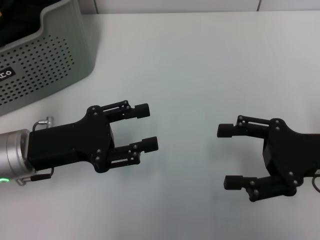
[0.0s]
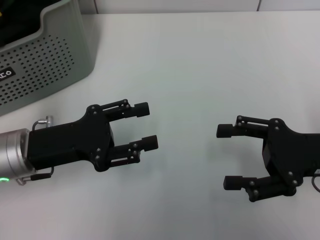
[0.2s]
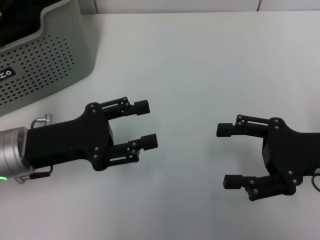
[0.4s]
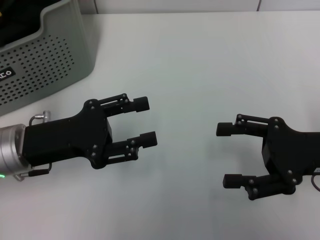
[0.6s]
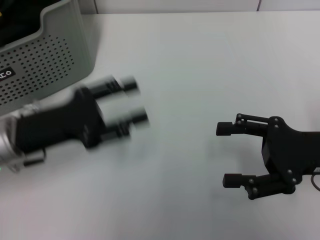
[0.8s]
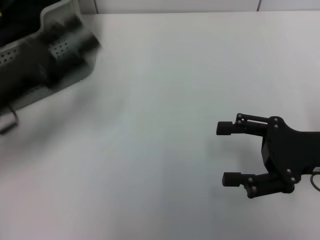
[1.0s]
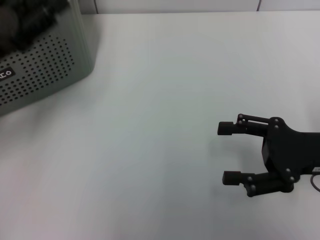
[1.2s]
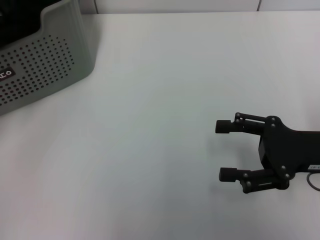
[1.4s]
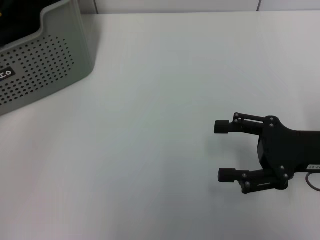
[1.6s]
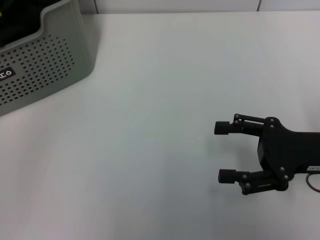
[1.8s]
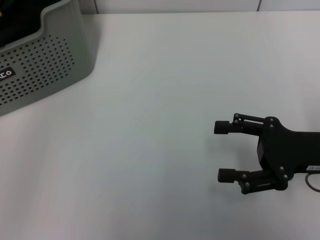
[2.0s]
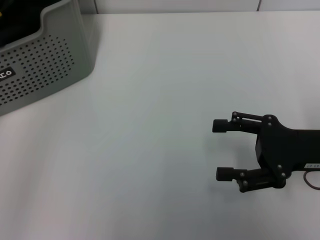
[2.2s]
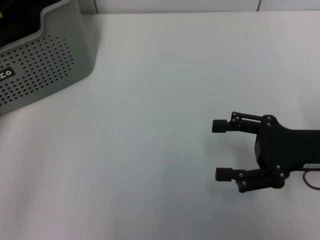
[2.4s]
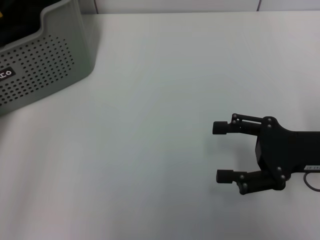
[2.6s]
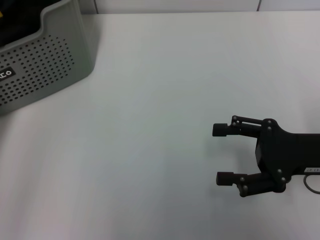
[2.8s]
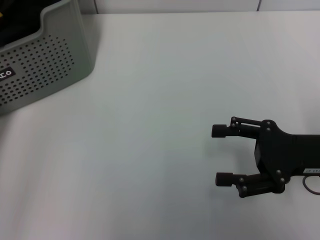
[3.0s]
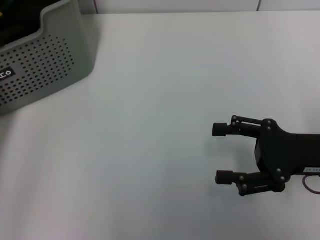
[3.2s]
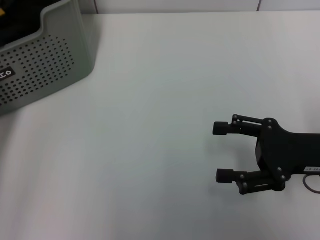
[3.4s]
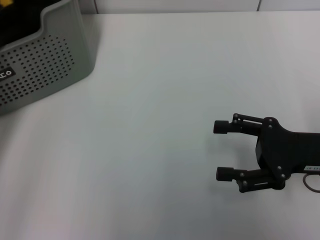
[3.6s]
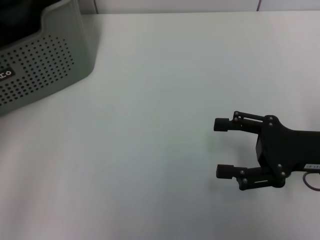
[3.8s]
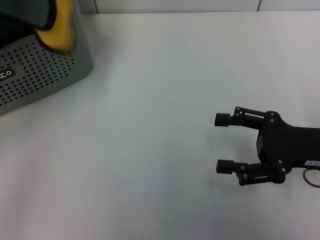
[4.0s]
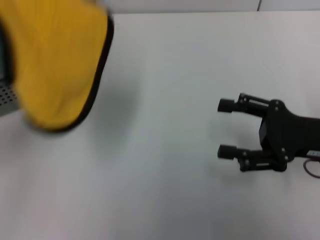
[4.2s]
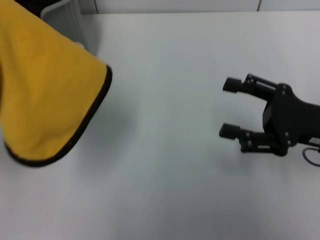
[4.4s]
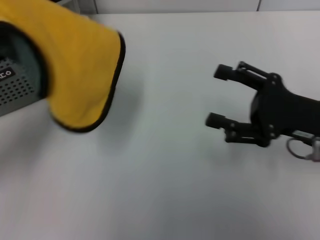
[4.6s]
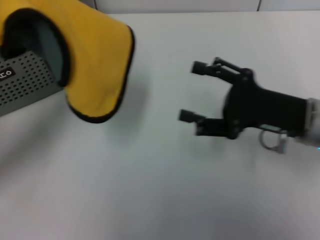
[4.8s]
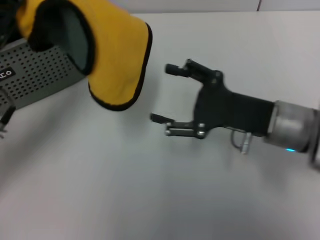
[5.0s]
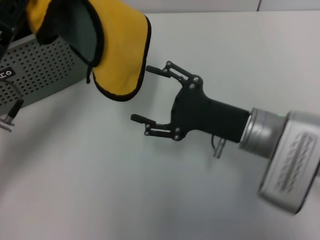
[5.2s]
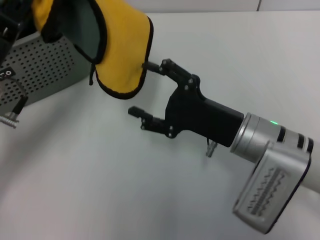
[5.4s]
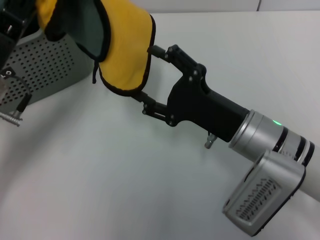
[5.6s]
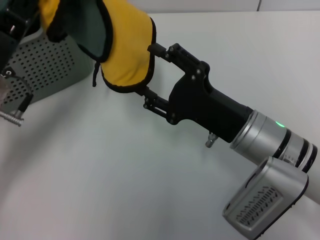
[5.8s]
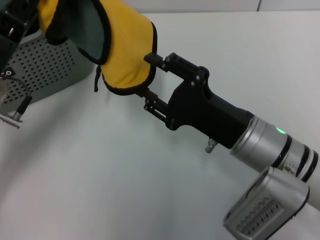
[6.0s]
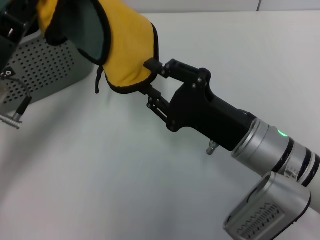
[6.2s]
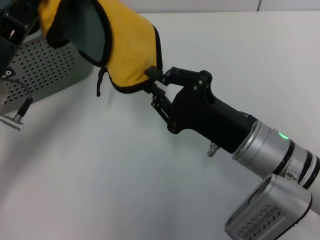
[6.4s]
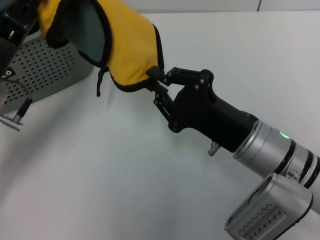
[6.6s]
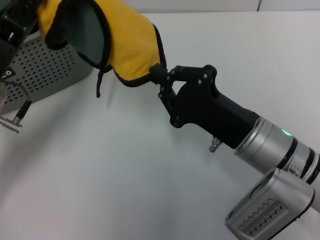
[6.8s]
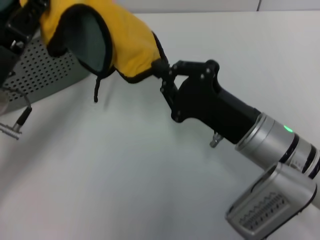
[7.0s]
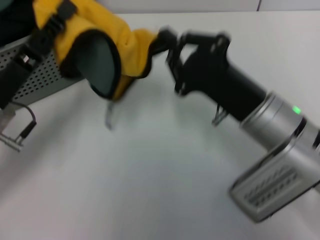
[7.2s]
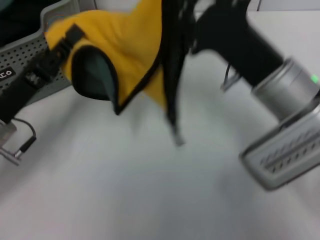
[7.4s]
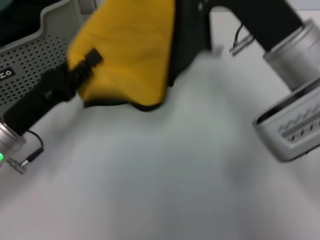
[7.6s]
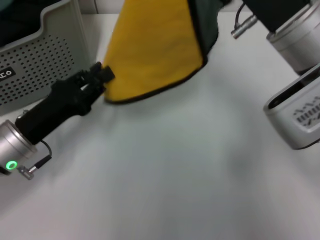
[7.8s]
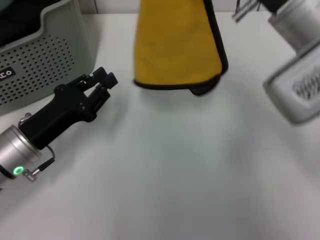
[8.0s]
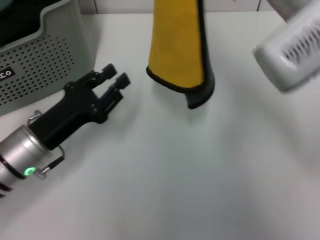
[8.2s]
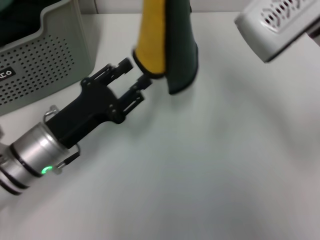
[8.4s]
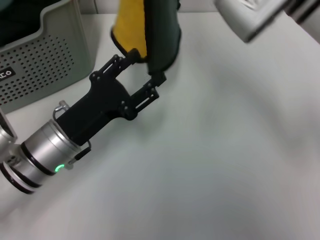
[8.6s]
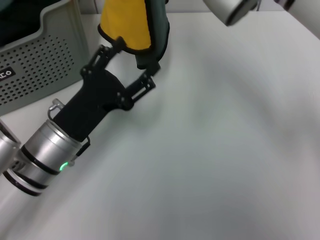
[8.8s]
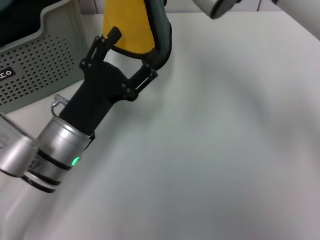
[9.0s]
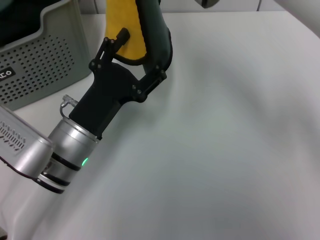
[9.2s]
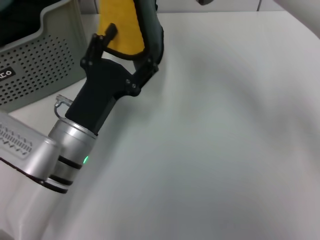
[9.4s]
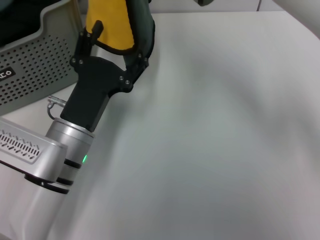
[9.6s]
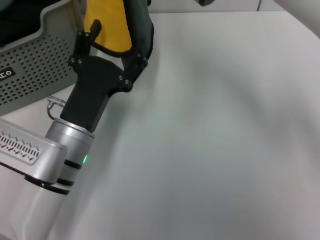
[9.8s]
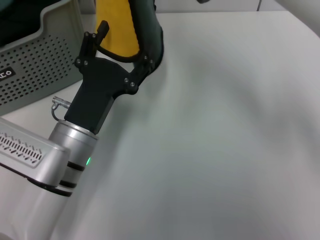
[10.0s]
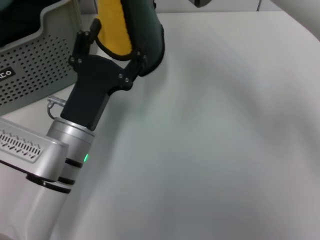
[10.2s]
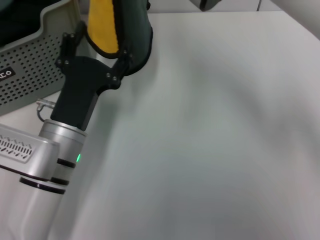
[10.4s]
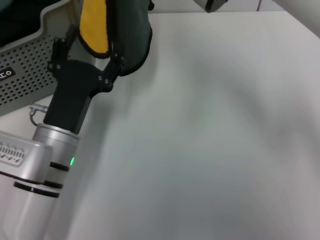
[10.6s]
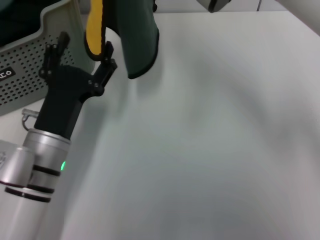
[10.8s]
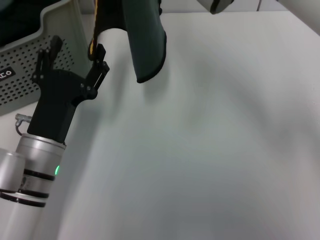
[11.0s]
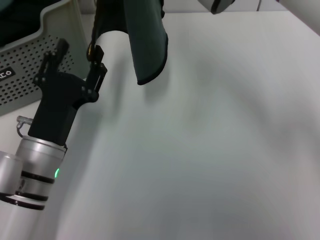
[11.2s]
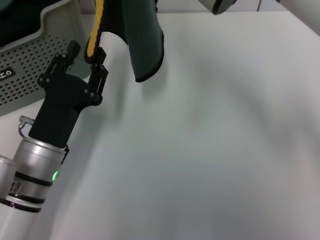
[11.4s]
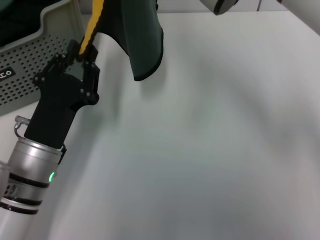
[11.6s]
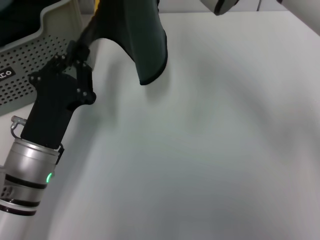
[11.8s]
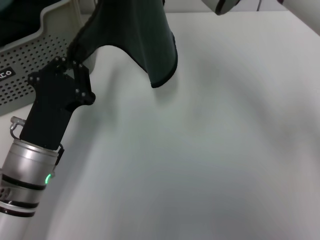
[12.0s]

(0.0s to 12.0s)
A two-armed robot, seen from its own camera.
Task of the whole recording: pick up the towel from the storage box and lay it flat on the table.
Step, 0.0s - 3.4s: Pick up a towel with the left gripper.
Step, 3.6s - 6.8s: Spread the towel flat with the left gripper.
0.0s - 1.6s: The left gripper is displaced to the left, upward and forward by roughly 15 cm.
3.0s - 4.4s: The left gripper goes about 10 cm backward, and closes up.
4.4s - 6.0s: The left gripper heads to the right, forward and downward, covering about 10 cm; the right gripper travels to the left by approximately 15 cm.
6.0s - 7.6s: The left gripper ends up some 5 cm from where it was. The right gripper travels upward by roughly 10 cm, and closes its fingers.
7.6s - 9.0s: The left gripper moves to the right, approximately 10 cm, and opens up. Meanwhile the right gripper travels upward, to the left and forward by some 15 cm.
10.4s - 12.0s: The left gripper closes.

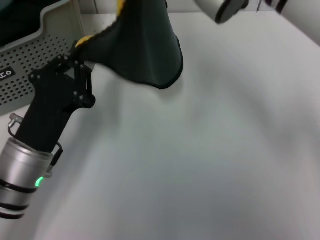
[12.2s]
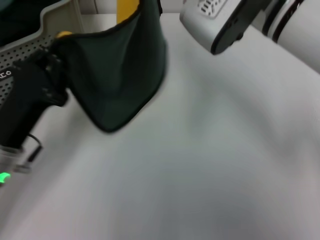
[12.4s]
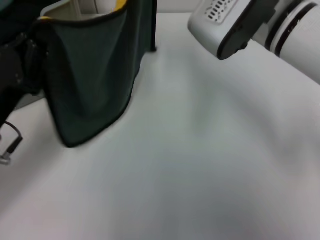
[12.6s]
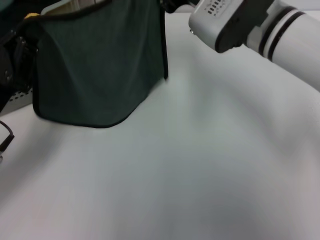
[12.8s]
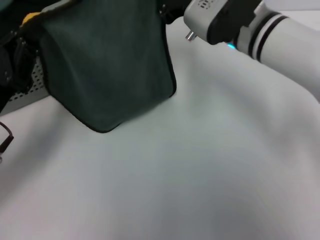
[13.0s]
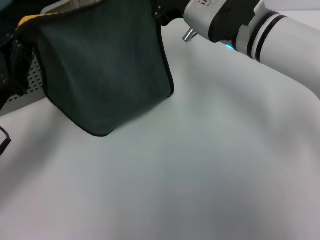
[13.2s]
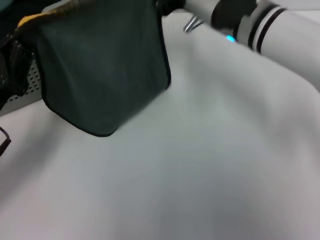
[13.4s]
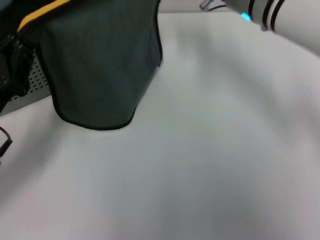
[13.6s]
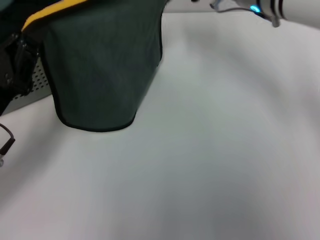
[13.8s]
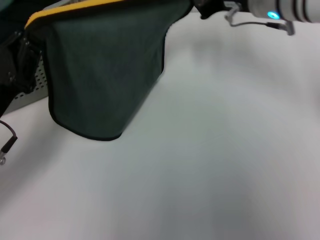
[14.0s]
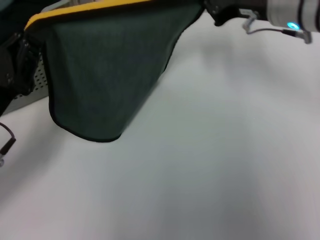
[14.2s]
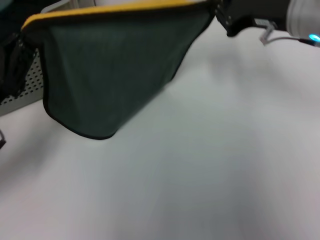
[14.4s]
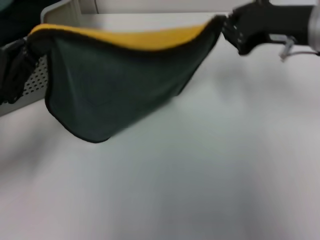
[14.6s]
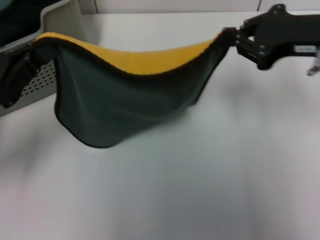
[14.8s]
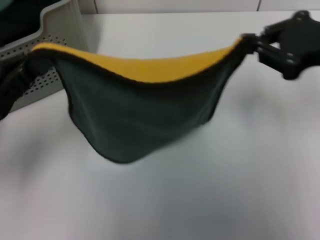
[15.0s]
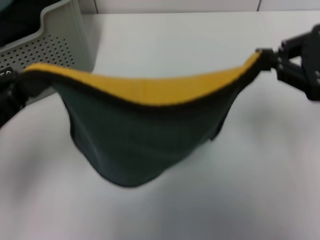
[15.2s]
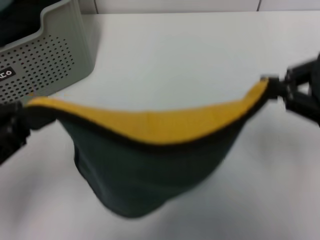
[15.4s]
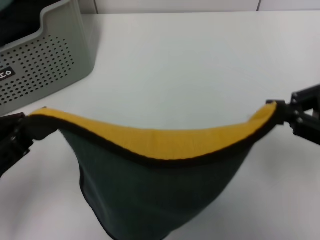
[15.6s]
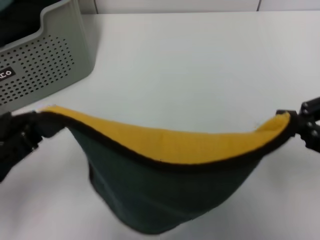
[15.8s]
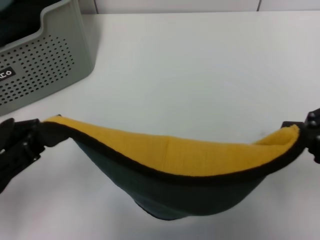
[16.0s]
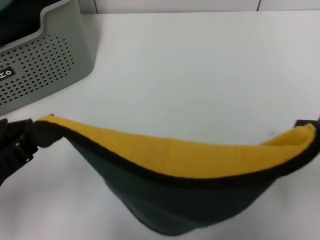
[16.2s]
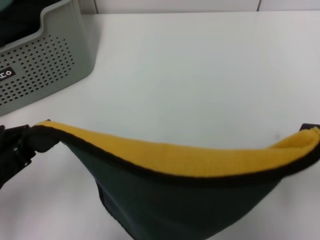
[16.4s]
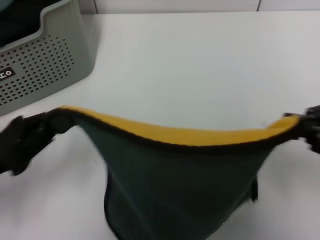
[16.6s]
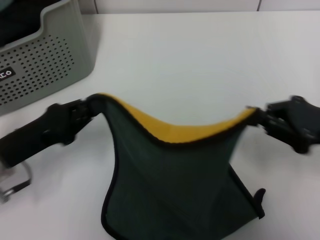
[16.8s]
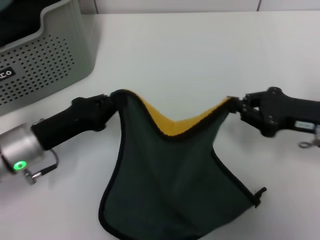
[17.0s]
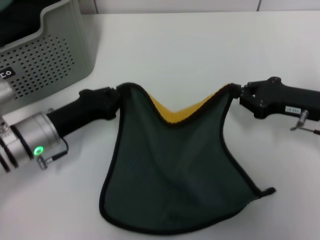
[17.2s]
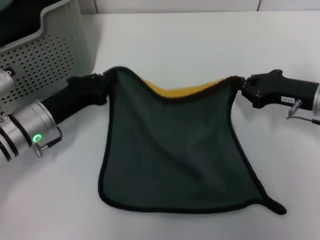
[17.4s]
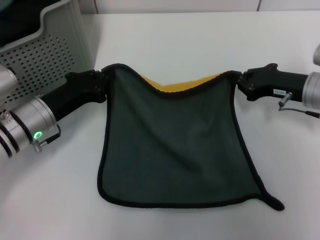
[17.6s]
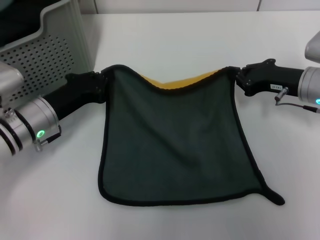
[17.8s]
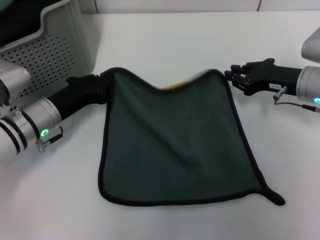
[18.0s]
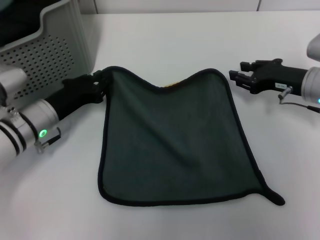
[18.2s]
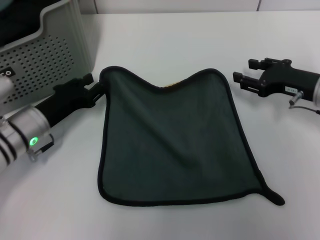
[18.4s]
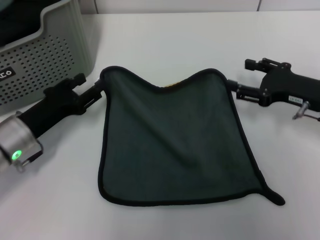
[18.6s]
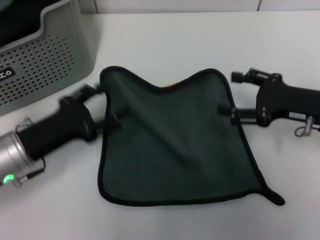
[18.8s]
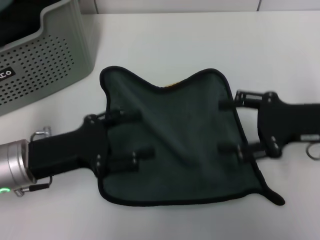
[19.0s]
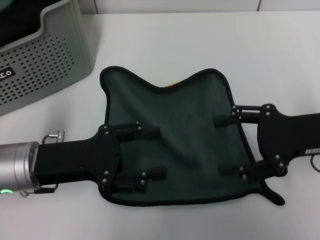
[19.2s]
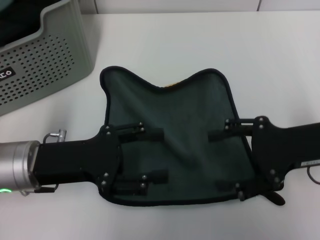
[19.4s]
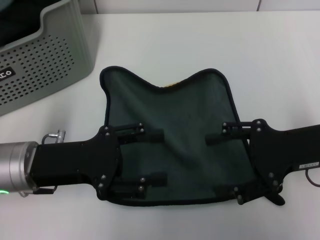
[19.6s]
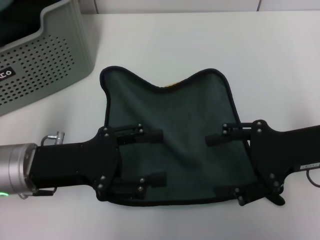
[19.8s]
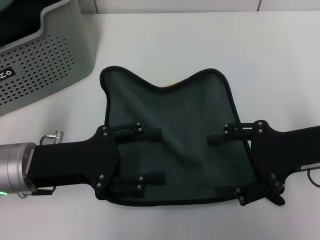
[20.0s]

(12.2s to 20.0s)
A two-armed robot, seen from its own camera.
Task of the whole recording: pick up the towel from the storage box and lay it flat on the table.
Step, 12.2s - 18.2s: Spread the towel flat with the right gripper.
12.2s - 13.8s: The right gripper shifts roughly 10 cm forward and downward. Meanwhile the left gripper shifts approximately 5 cm to the left.
13.8s - 15.4s: The left gripper shifts approximately 10 cm upward and backward. Meanwhile the right gripper goes approximately 25 cm backward and to the right.
15.4s - 16.8s: The left gripper travels downward and forward by about 10 cm; the right gripper is displaced downward by about 10 cm.
16.8s - 18.4s: Both grippers travel together forward, about 10 cm. The right gripper opens its fingers.
18.4s - 20.0s: The right gripper goes roughly 10 cm backward and upward, and opens its fingers, while the left gripper shifts about 10 cm upward and backward, and opens.
